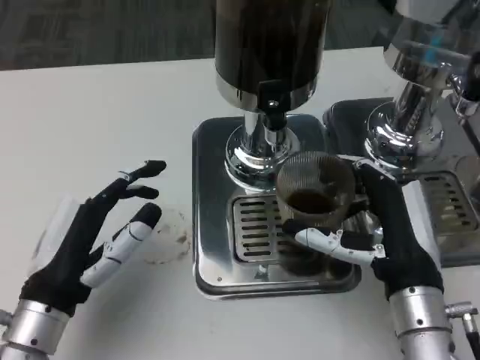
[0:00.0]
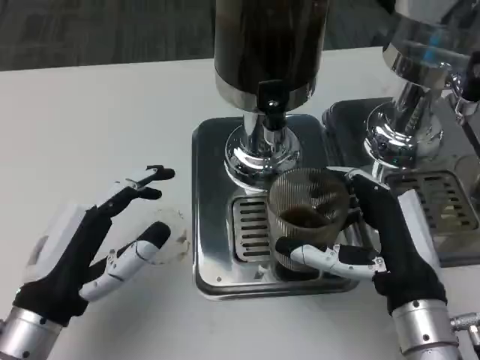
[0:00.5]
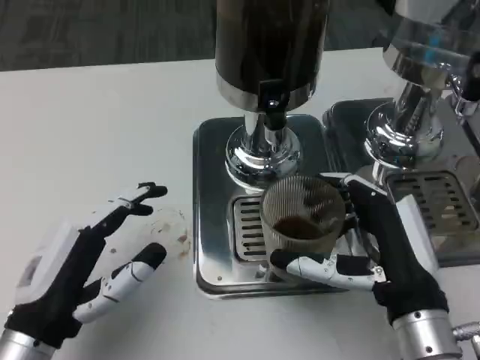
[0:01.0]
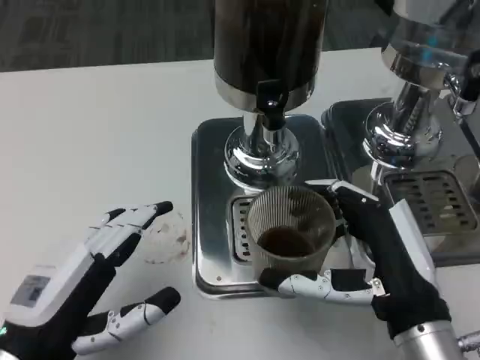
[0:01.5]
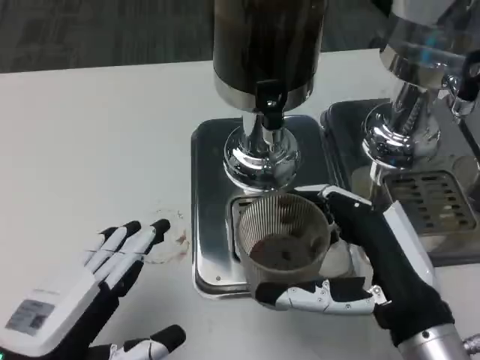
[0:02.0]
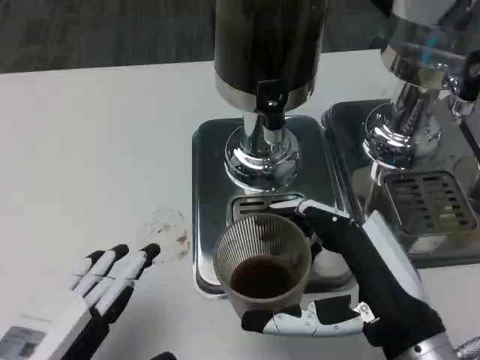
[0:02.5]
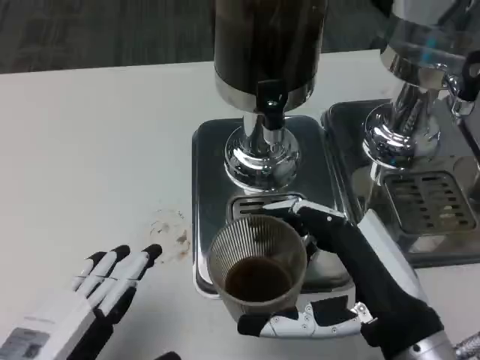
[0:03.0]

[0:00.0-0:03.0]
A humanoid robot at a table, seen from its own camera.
Task of the whole recording: Grasp the cup under the faucet to collect the drink, then remove the cup.
0:00.0 to 0:01.5: The left hand heads backward, covering some 5 cm.
0:01.5 to 0:03.0: The left hand moves backward, approximately 5 cm.

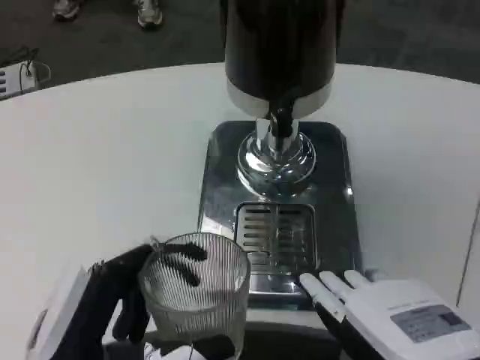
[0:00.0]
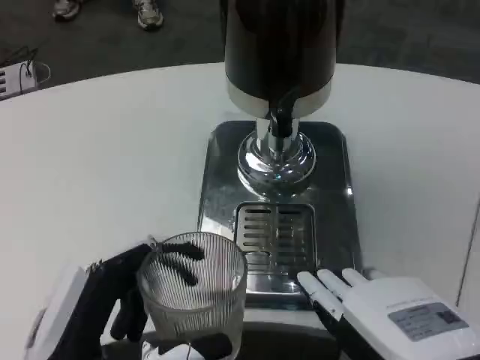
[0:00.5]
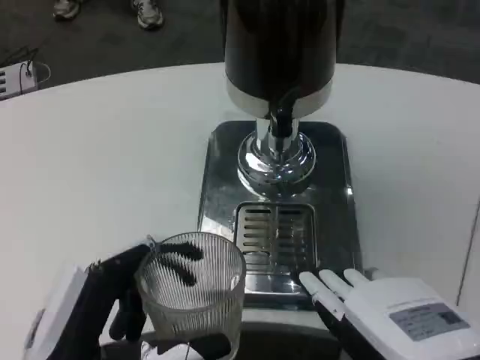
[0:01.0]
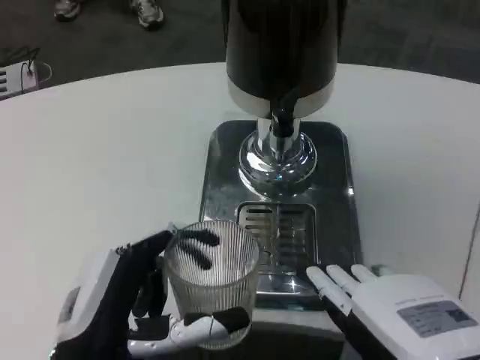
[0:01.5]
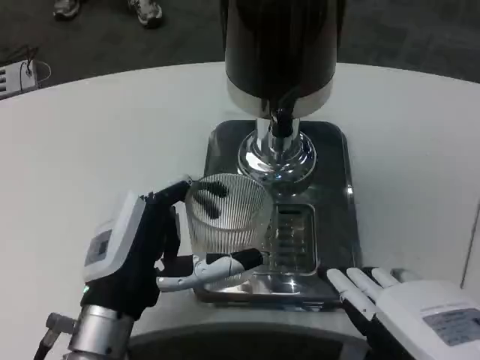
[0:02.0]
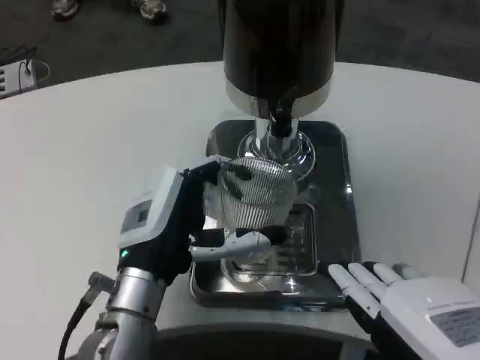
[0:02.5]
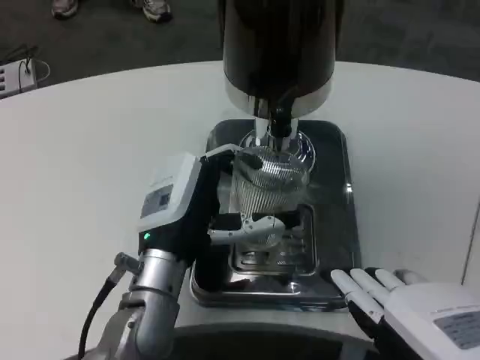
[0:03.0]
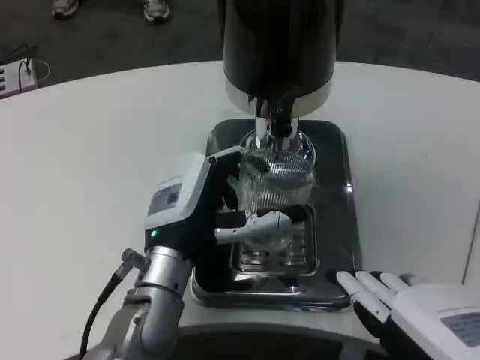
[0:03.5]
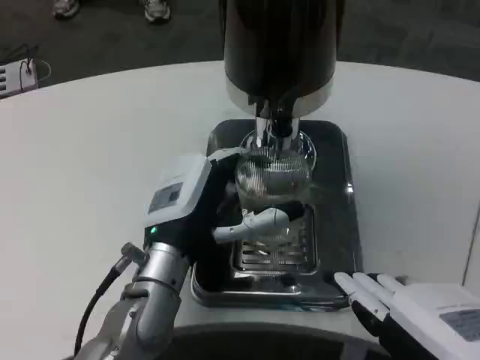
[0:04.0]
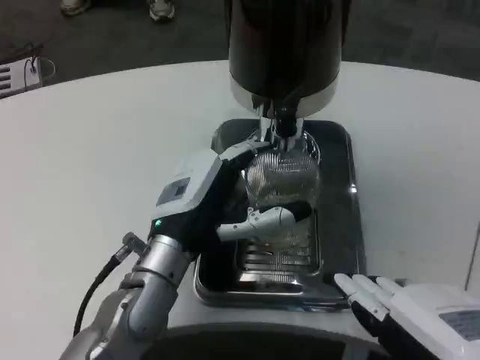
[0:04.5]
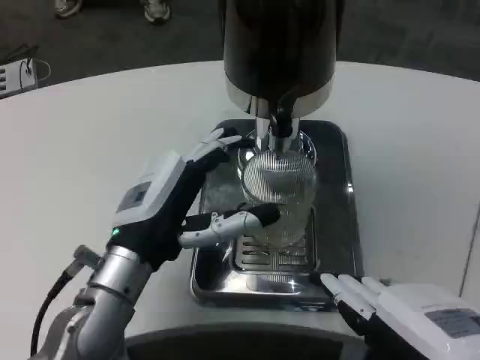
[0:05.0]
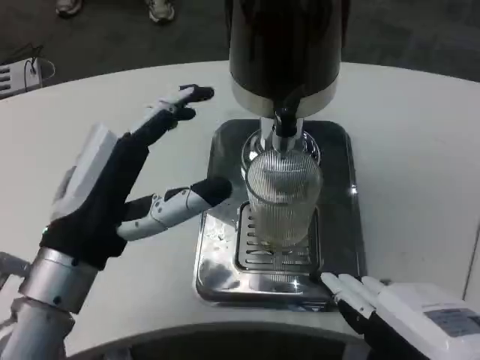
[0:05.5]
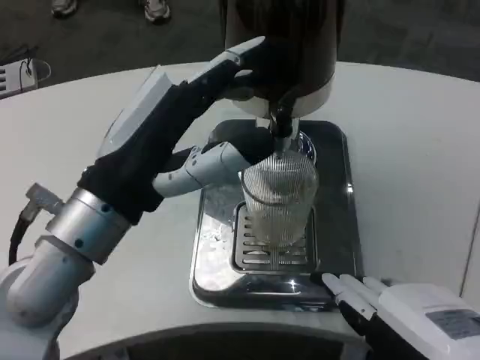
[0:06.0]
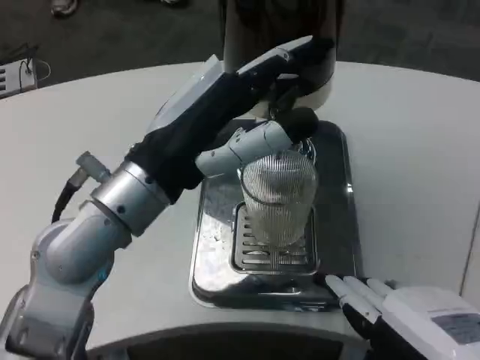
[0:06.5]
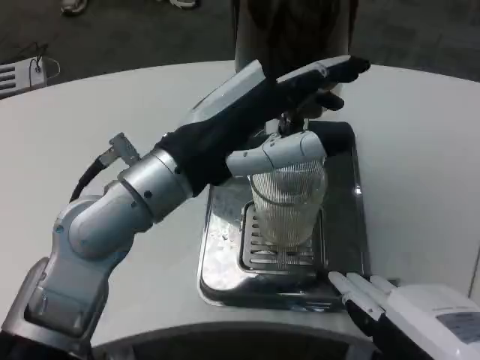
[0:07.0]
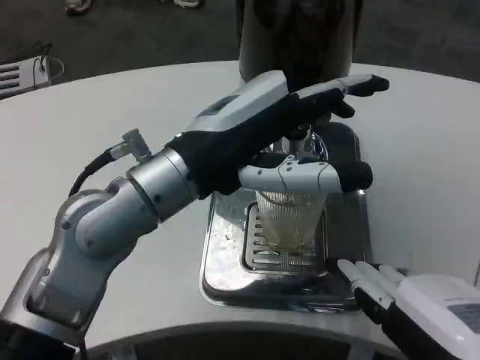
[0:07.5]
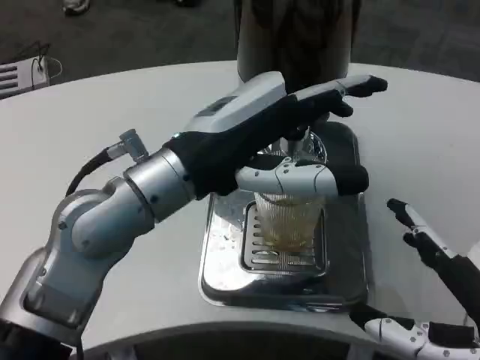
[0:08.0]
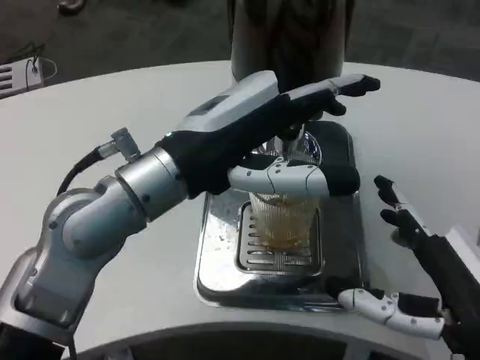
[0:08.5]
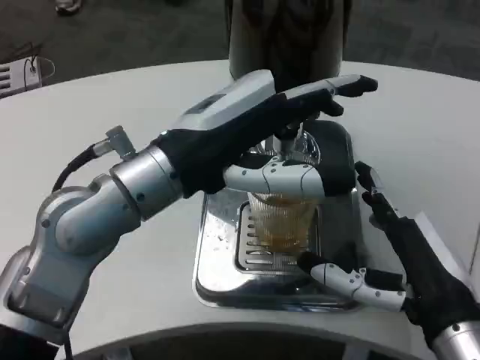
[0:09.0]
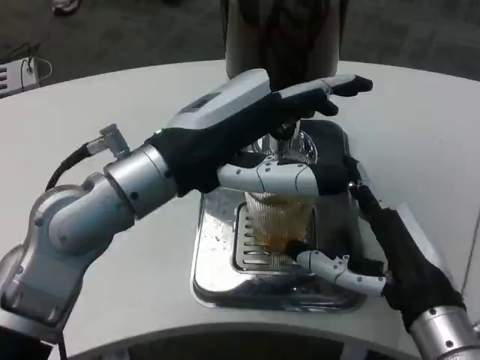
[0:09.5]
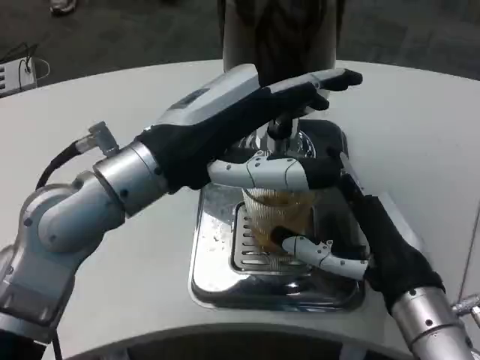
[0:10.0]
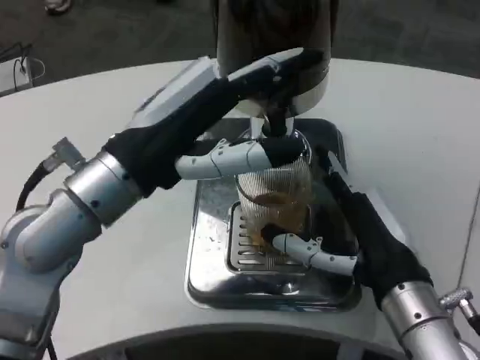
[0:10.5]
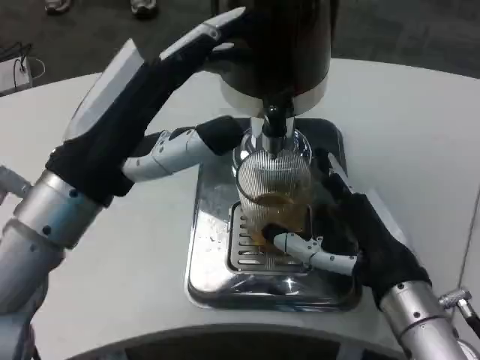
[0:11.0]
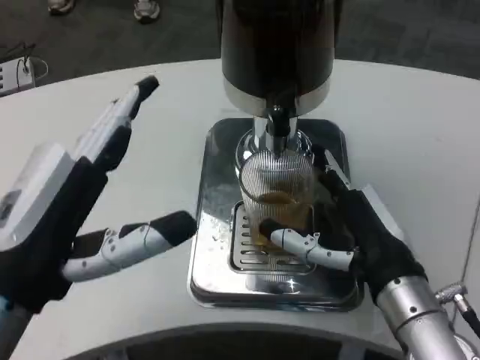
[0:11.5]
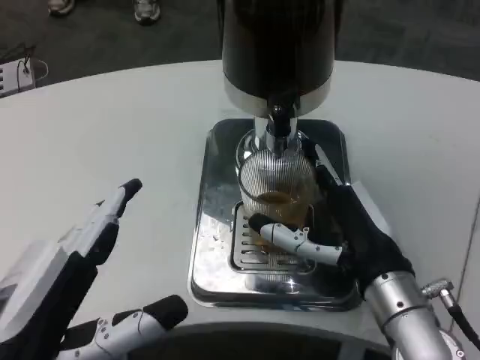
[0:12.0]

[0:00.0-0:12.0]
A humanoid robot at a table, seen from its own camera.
Task of the whole recording: Grasp the cup under the faucet to collect the drink, then remove the cup.
0:00.0 to 0:02.0: The left hand goes roughly 10 cm forward.
0:02.0 to 0:04.0: The left hand heads forward, covering about 5 cm.
0:04.0 to 0:06.0: The left hand goes some 10 cm upward and backward.
0:06.0 to 0:08.0: The left hand changes place by approximately 5 cm.
0:08.0 to 0:10.0: The right hand heads forward and to the left, covering some 15 cm.
0:10.0 to 0:12.0: The left hand is displaced backward, downward and to the left by about 20 cm.

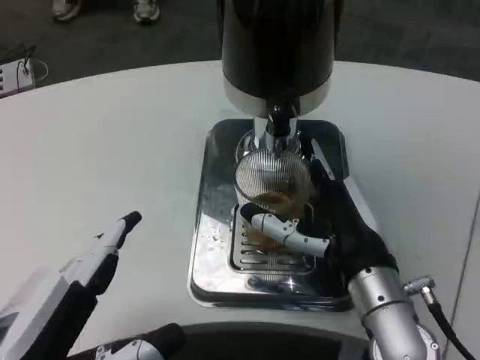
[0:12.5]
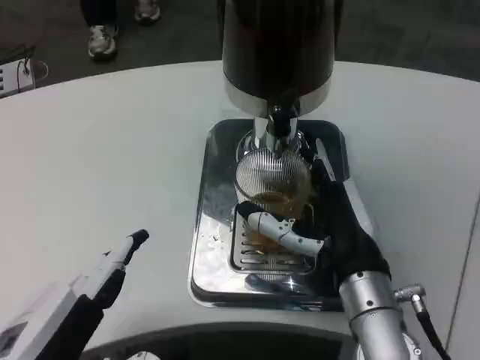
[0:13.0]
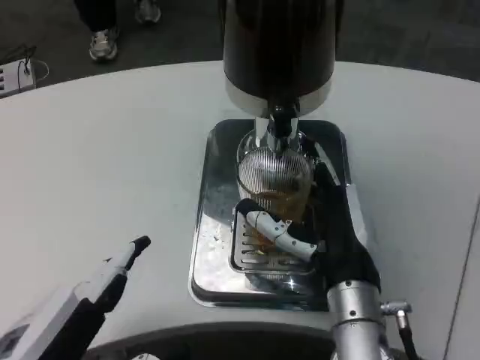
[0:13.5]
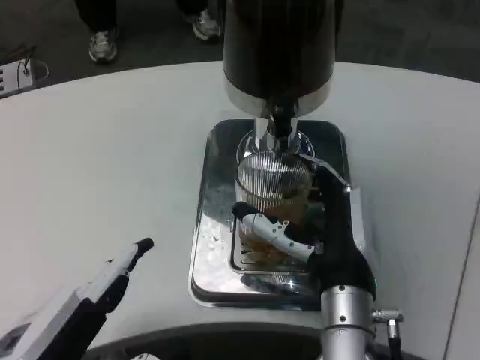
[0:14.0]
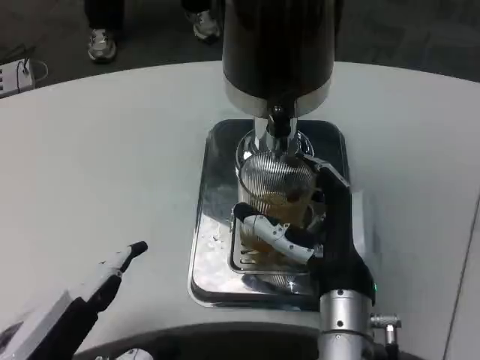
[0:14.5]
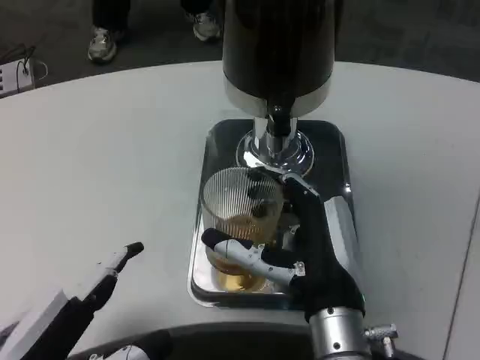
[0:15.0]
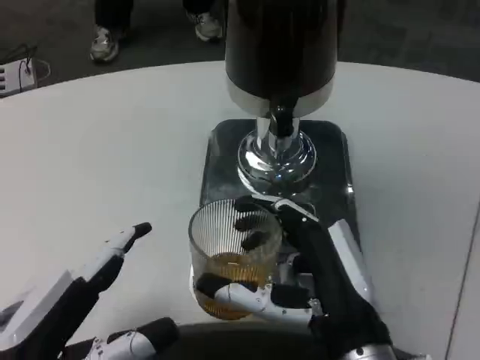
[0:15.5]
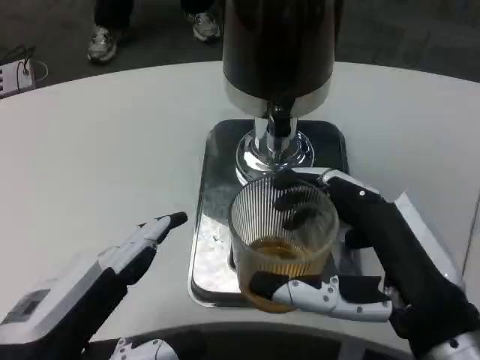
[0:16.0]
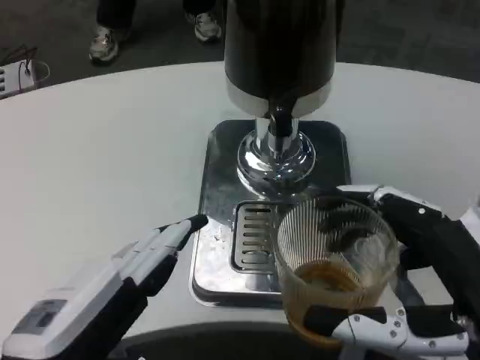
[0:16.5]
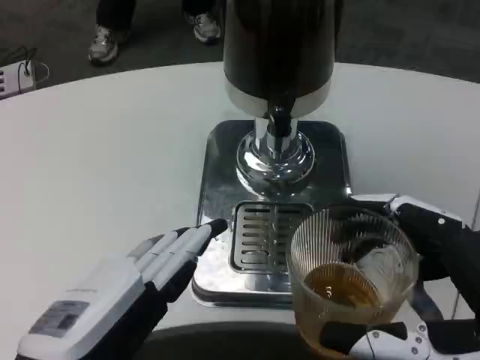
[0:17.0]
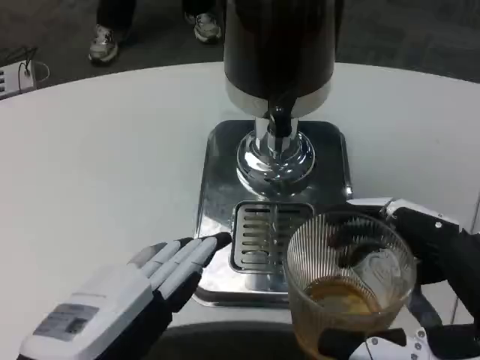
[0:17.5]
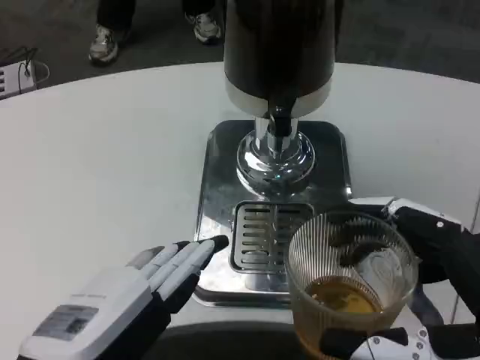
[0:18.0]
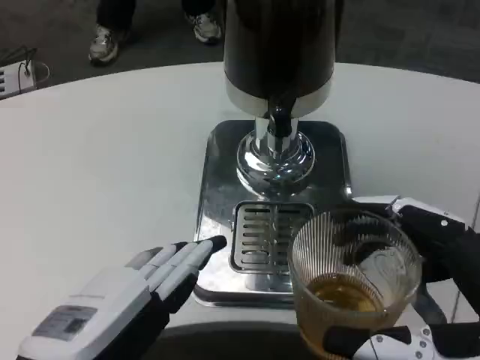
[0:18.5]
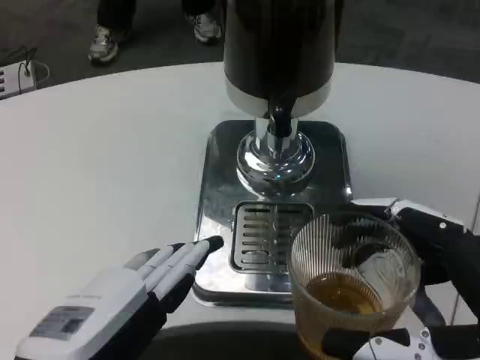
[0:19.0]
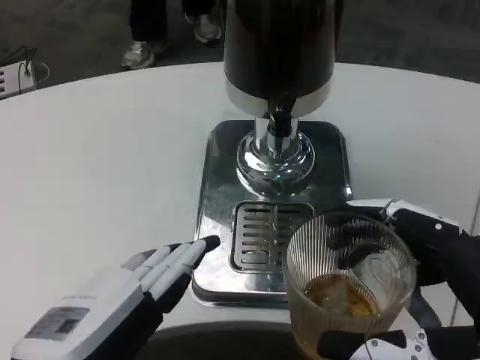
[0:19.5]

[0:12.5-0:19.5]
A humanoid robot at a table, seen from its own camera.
Task of the whole recording: Grasp the cup under the faucet to collect the drink, then remove the cup.
0:12.5 to 0:14.5: The right hand goes approximately 5 cm to the left.
0:14.5 to 0:16.0: The right hand is displaced backward and to the right by some 15 cm.
0:16.0 to 0:17.5: The right hand moves backward, about 5 cm.
0:17.5 to 0:19.5: Neither hand changes place.

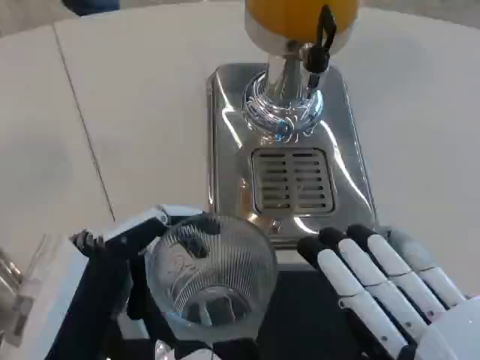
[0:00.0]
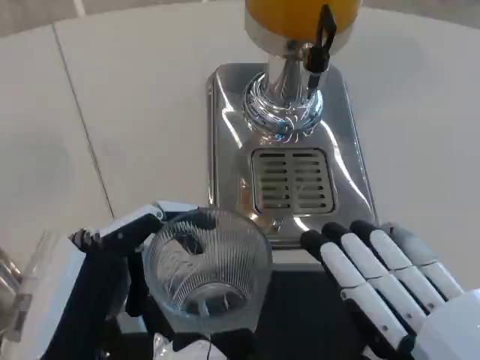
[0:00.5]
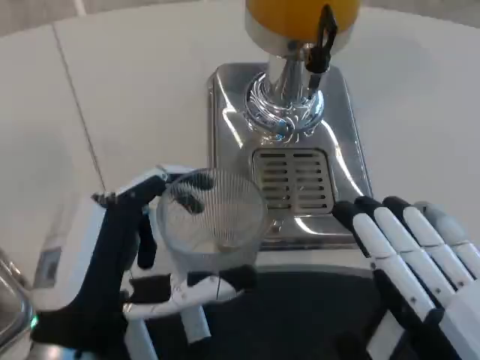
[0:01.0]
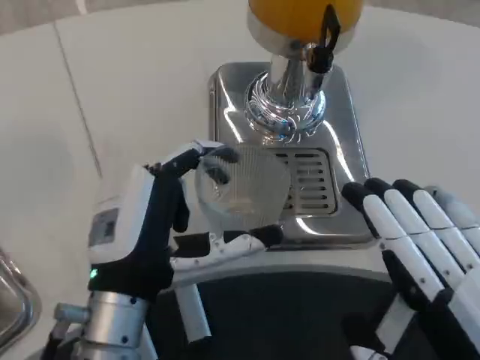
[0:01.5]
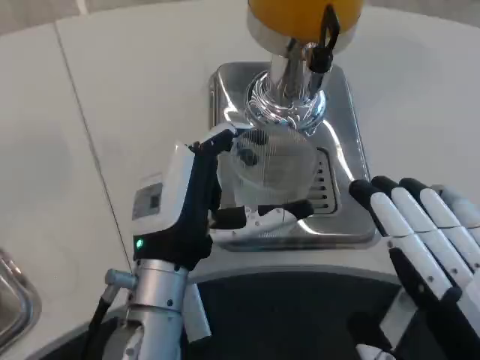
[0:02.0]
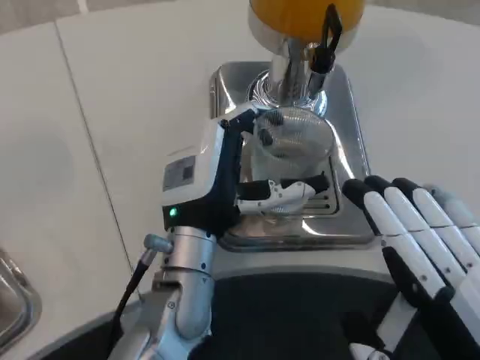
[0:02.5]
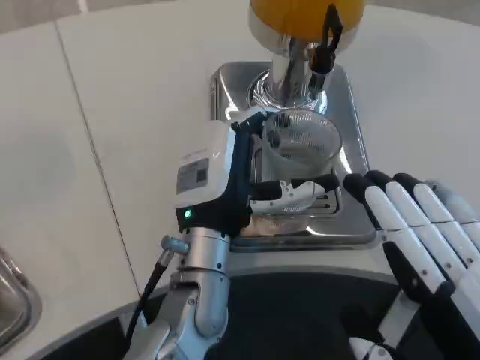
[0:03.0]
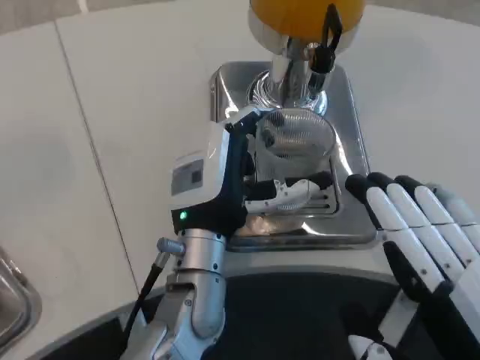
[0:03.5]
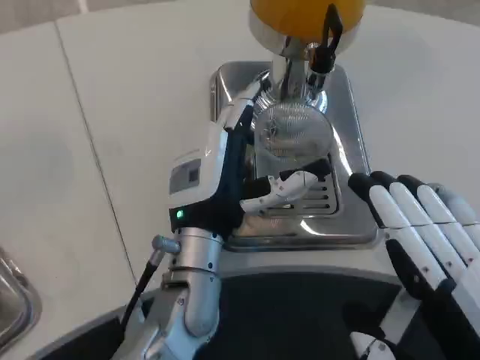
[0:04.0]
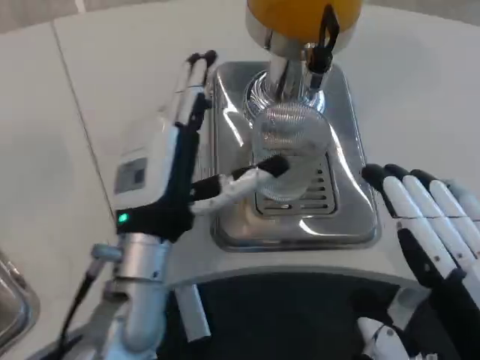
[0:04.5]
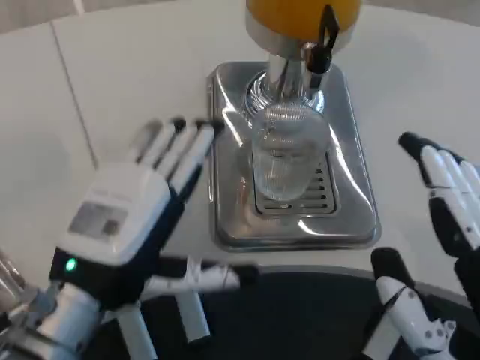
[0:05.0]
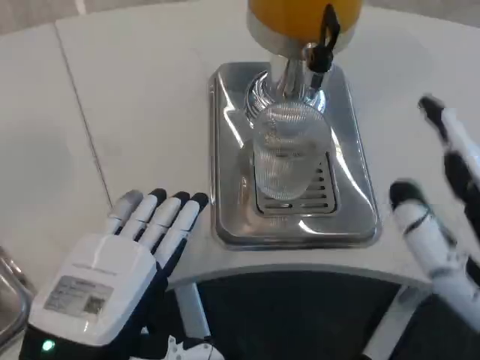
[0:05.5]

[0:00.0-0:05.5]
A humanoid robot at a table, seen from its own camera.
Task of the whole recording: Grasp the cup under the faucet to collect the drink, then remove the cup.
0:00.0 to 0:02.0: The left hand goes approximately 15 cm forward and to the right.
0:02.0 to 0:03.5: The left hand changes place by some 5 cm.
0:03.5 to 0:05.5: The left hand goes about 20 cm backward and to the left.
